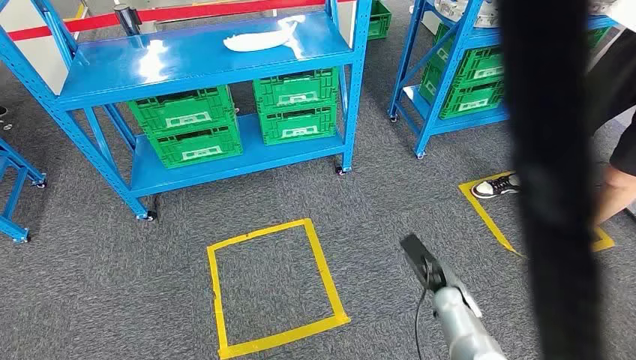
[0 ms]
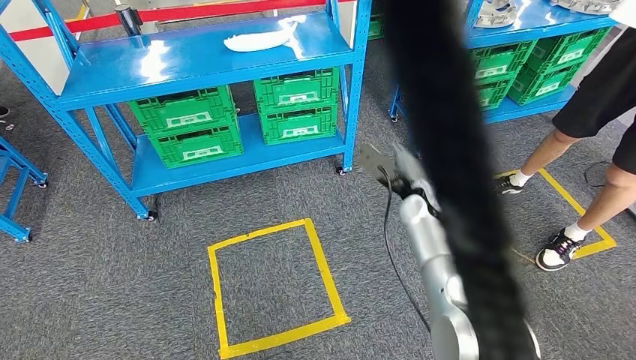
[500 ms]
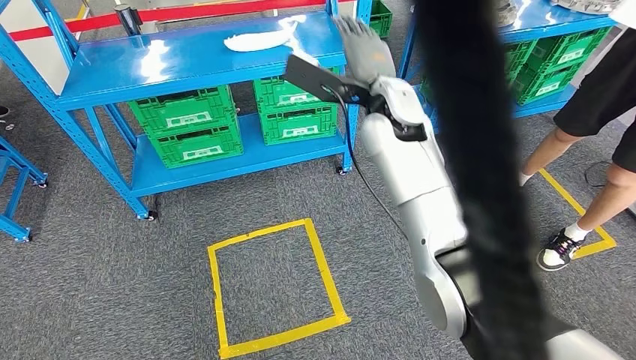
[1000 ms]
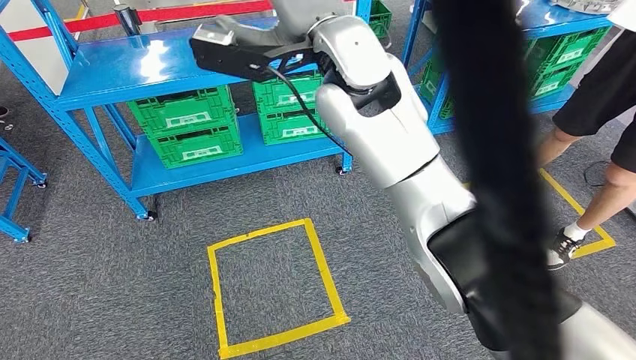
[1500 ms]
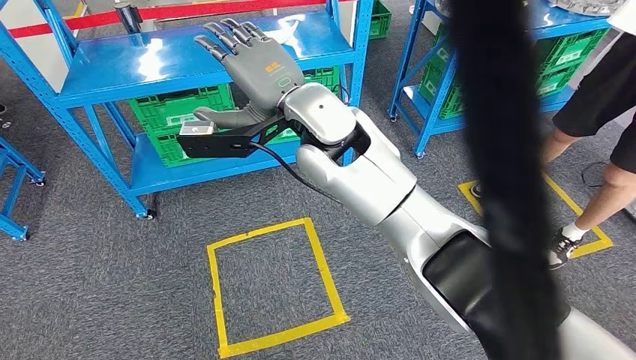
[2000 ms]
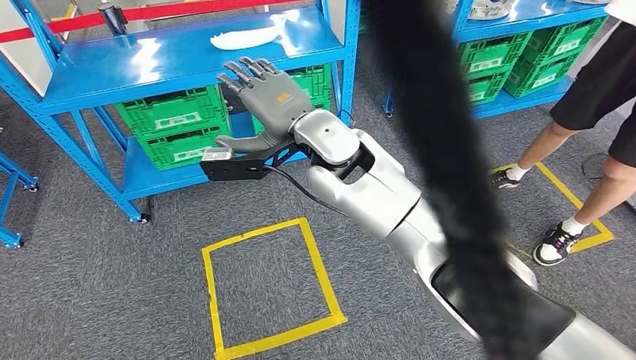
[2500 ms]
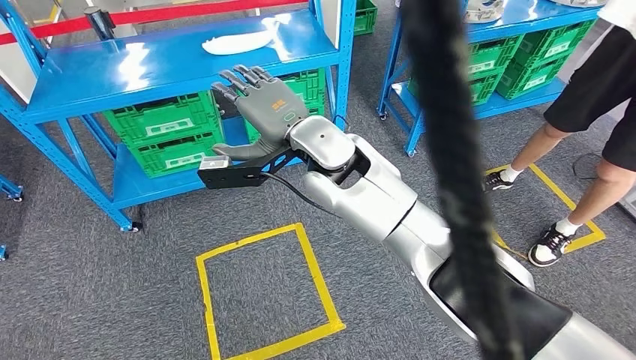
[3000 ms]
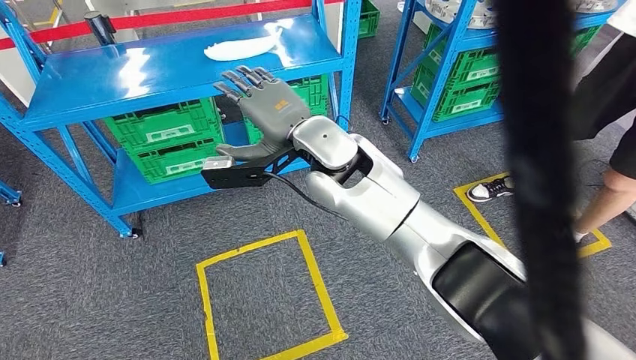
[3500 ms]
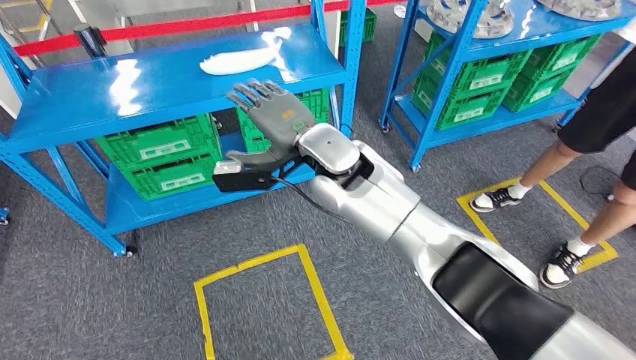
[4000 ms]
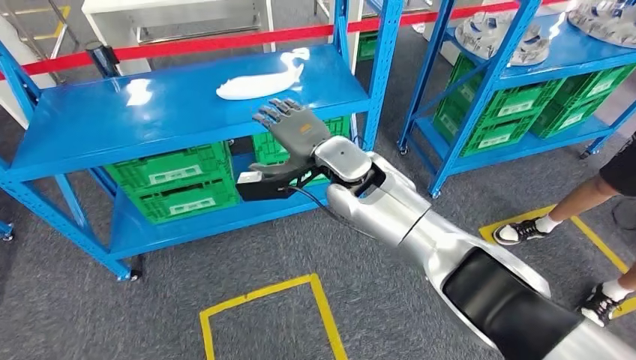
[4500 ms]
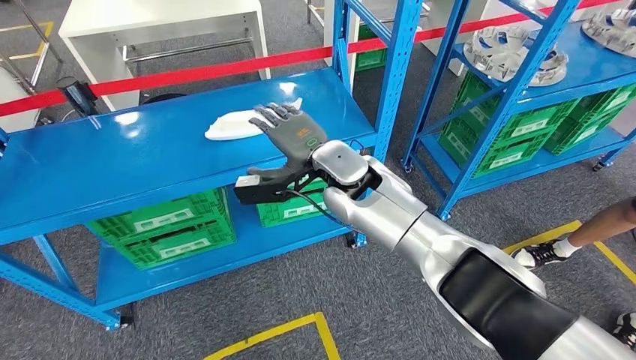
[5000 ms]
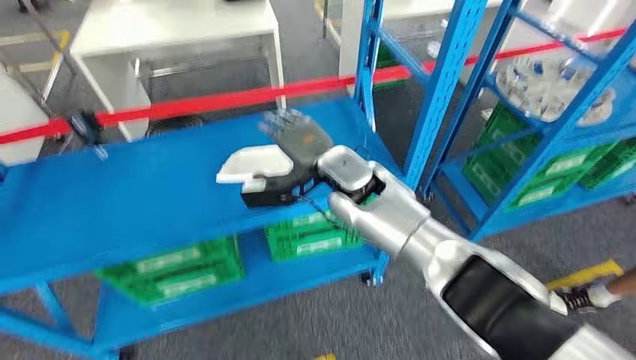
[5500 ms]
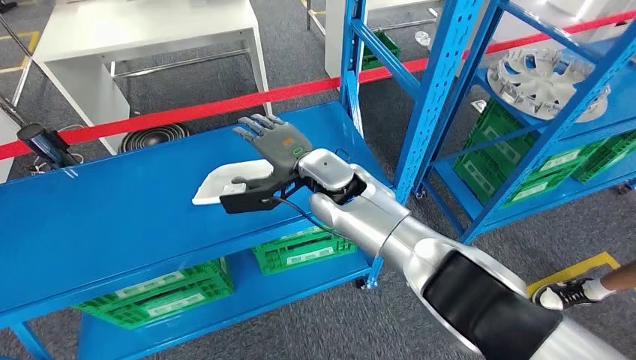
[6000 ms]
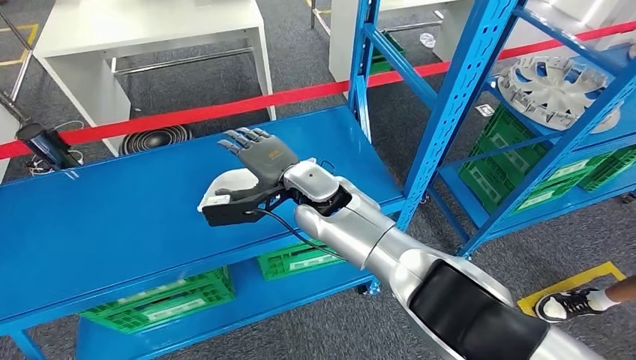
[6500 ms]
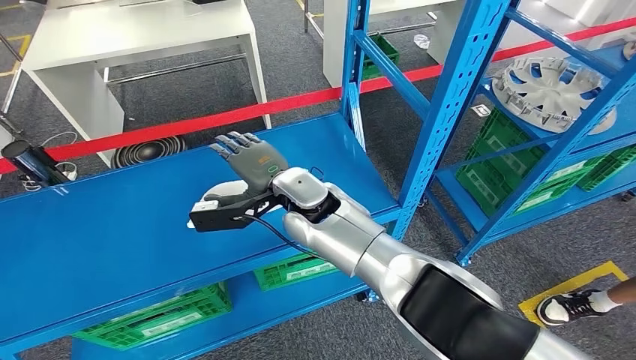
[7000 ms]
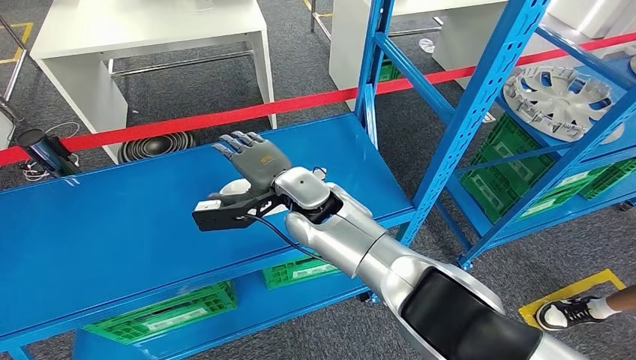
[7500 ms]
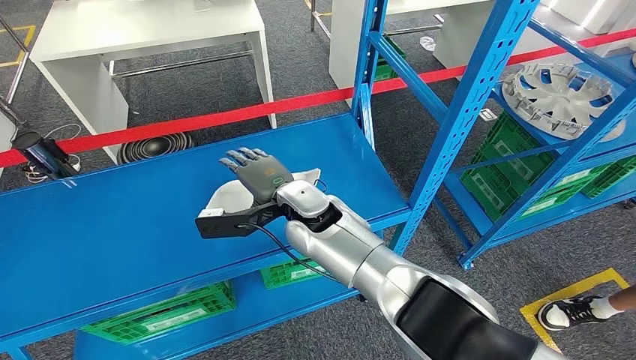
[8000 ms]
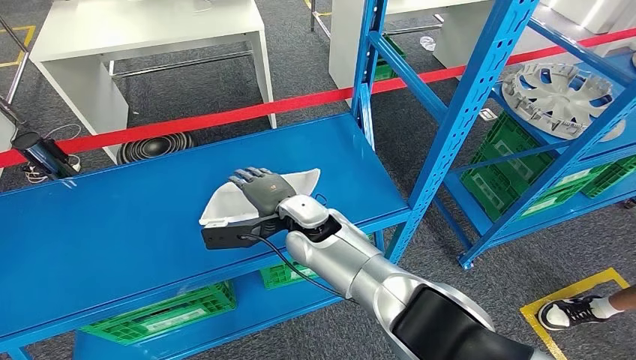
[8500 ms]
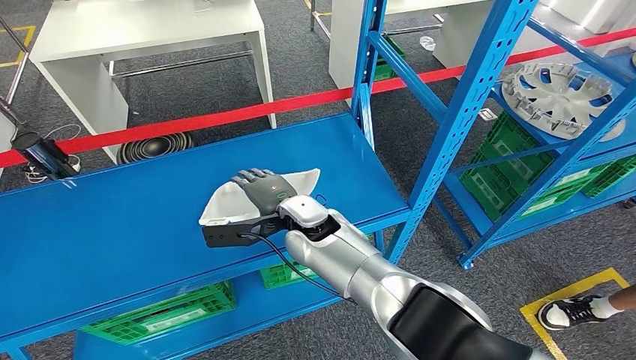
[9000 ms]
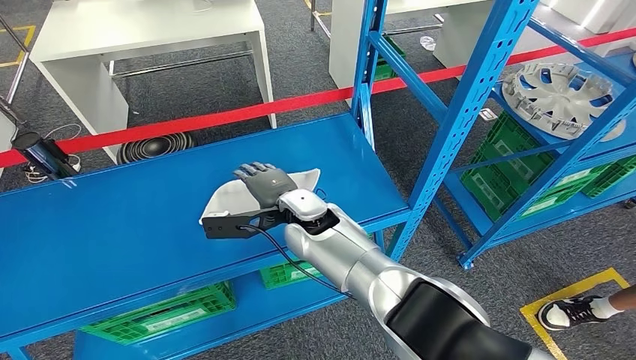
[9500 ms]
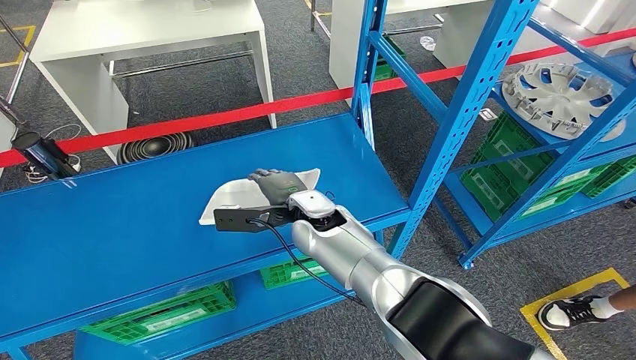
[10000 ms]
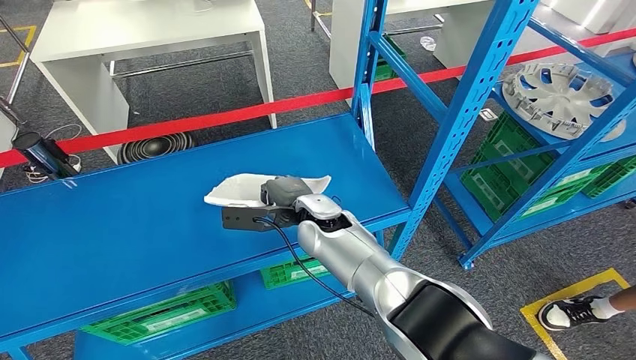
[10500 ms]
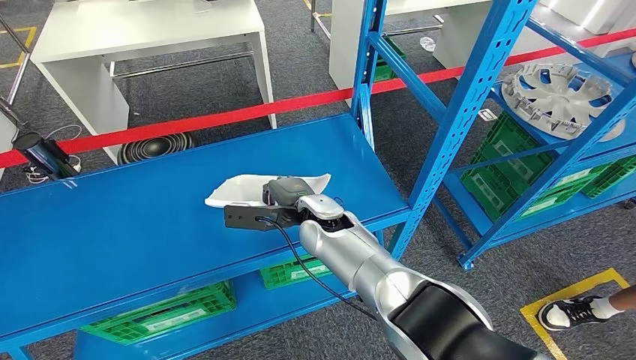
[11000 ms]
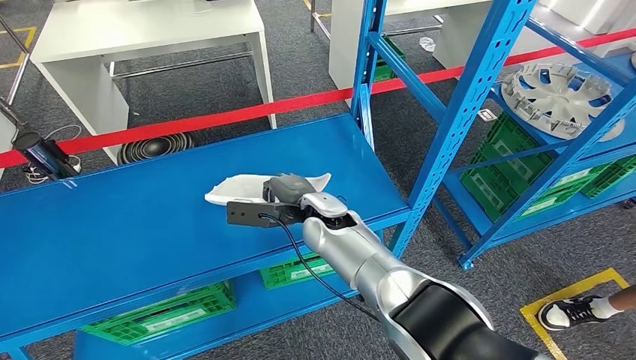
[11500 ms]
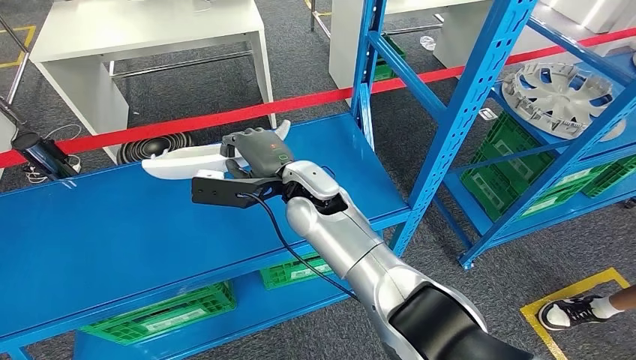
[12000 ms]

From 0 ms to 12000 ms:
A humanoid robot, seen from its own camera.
From 8000 ms to 10000 ms: The hands move only a little.
From 10000 ms to 12000 ms: The right hand goes about 5 cm upward.

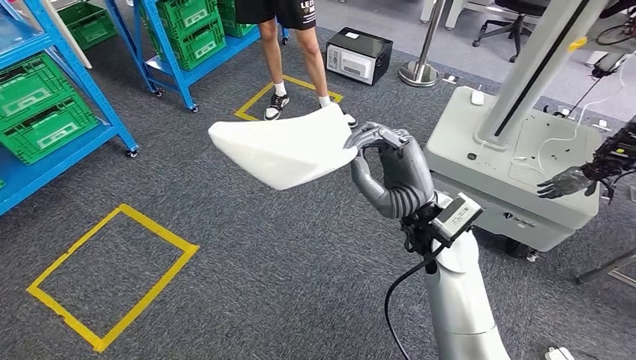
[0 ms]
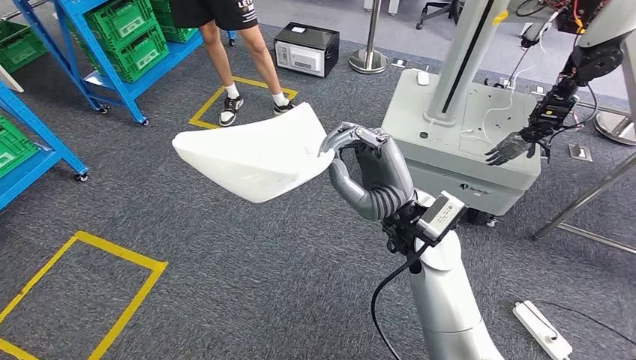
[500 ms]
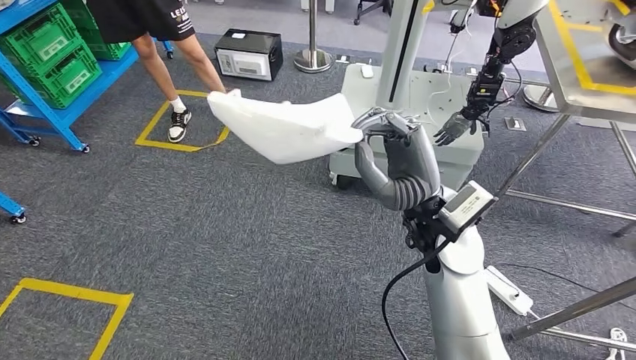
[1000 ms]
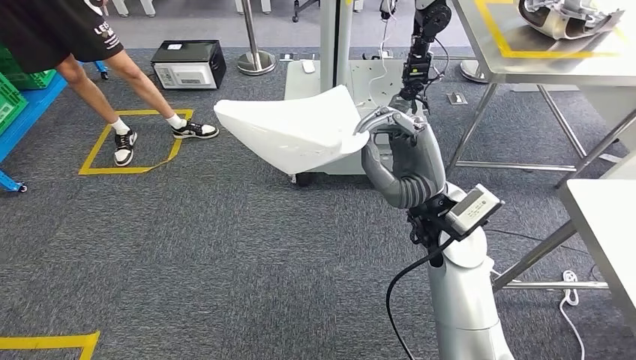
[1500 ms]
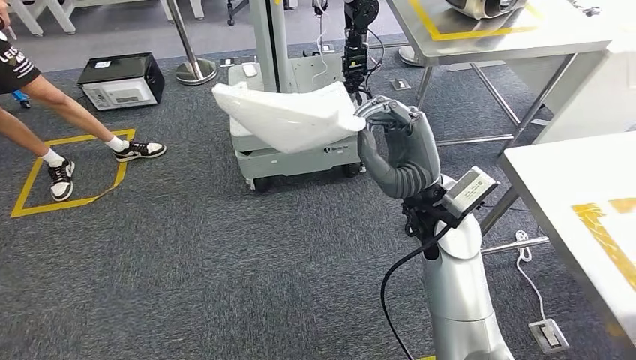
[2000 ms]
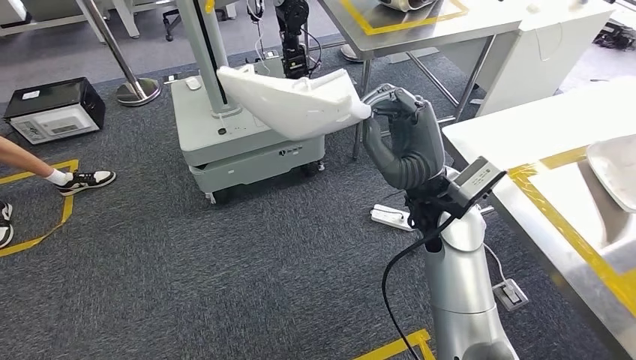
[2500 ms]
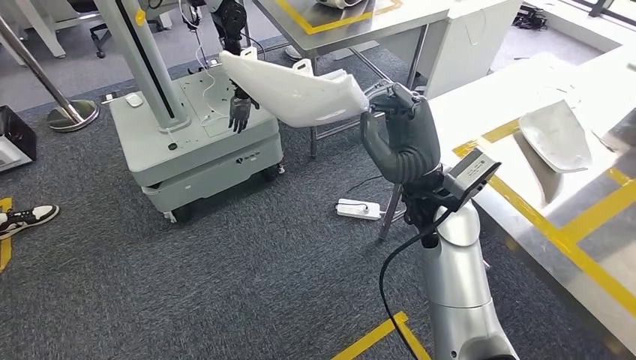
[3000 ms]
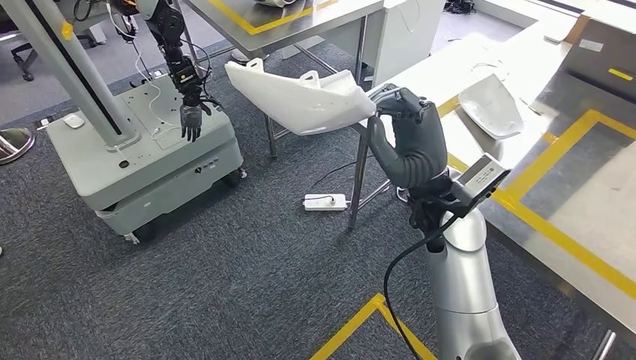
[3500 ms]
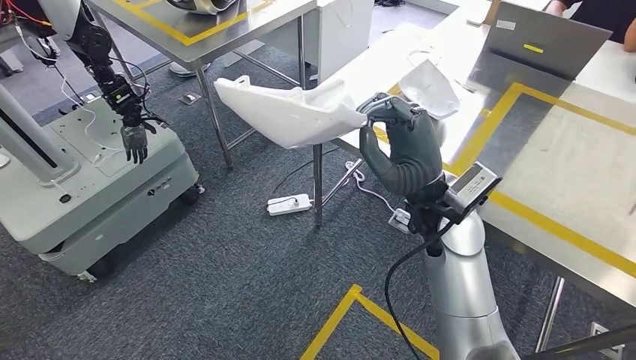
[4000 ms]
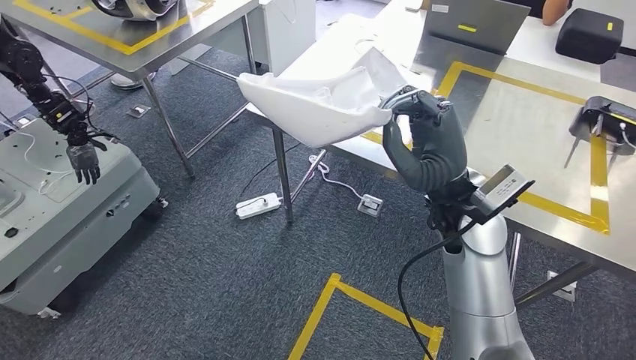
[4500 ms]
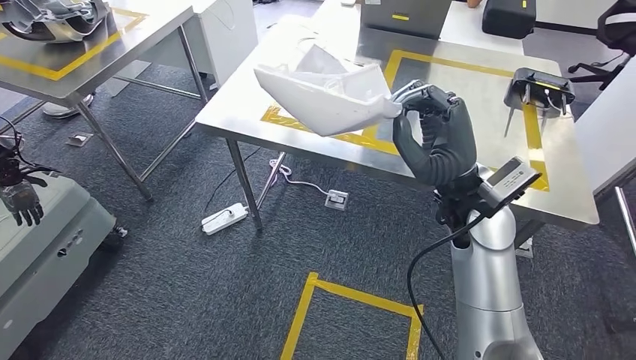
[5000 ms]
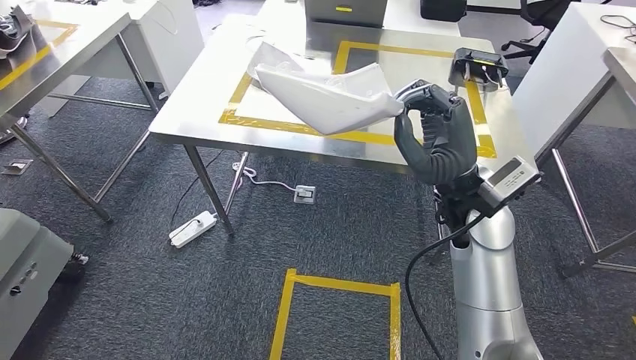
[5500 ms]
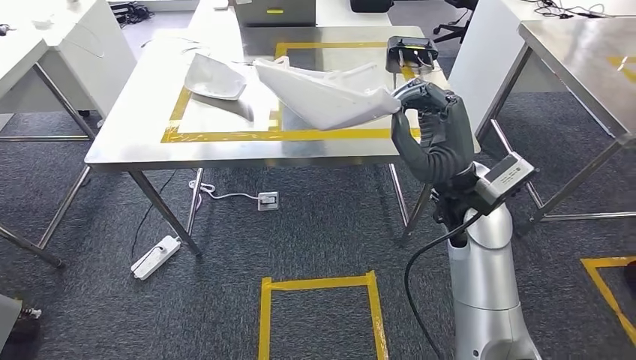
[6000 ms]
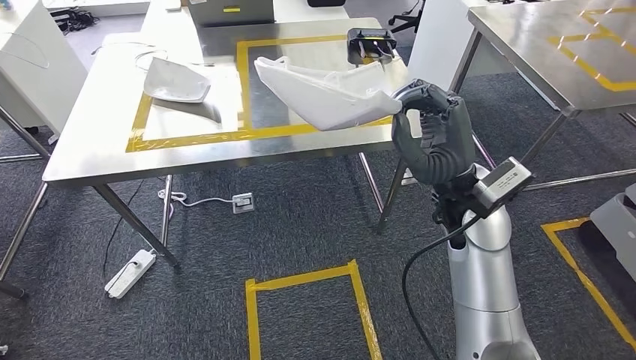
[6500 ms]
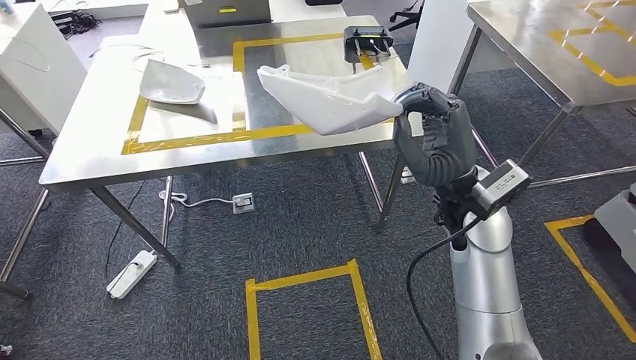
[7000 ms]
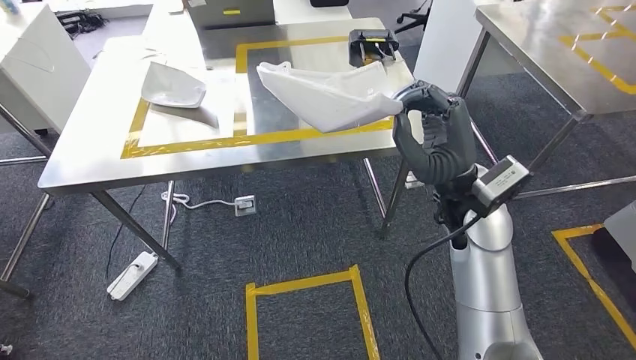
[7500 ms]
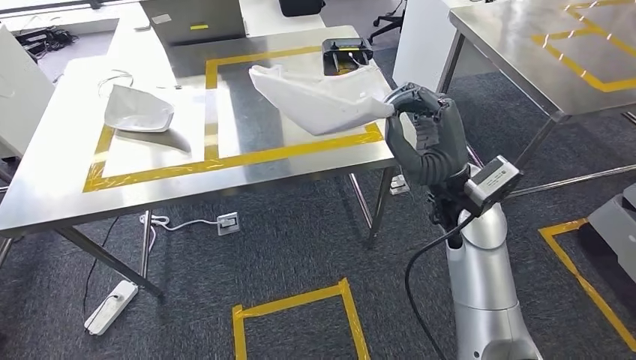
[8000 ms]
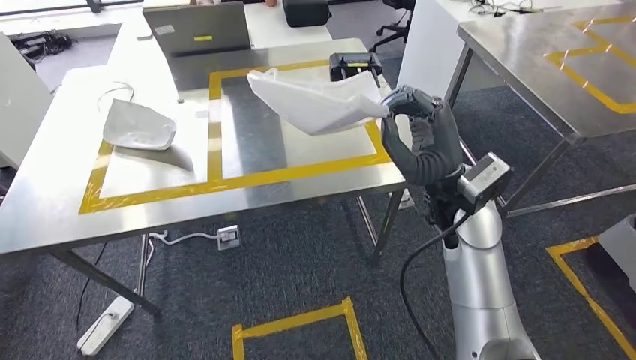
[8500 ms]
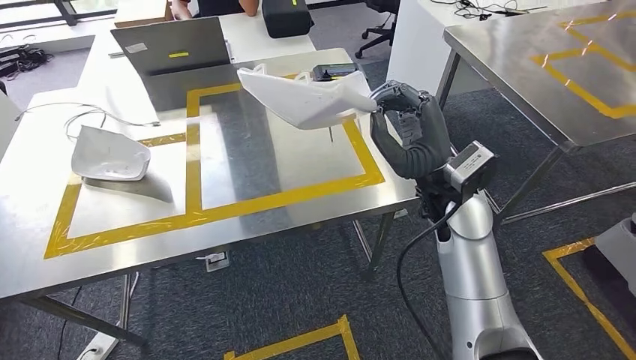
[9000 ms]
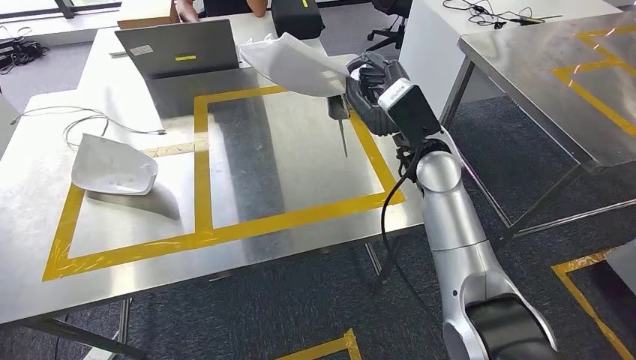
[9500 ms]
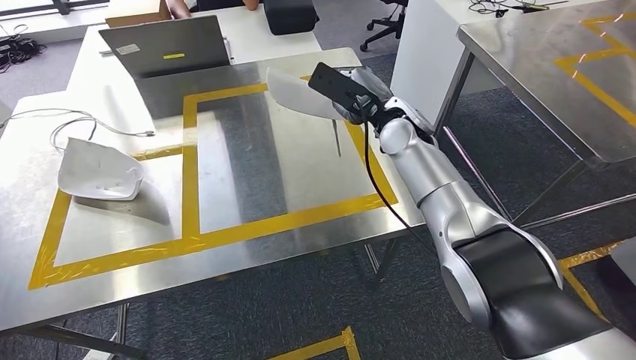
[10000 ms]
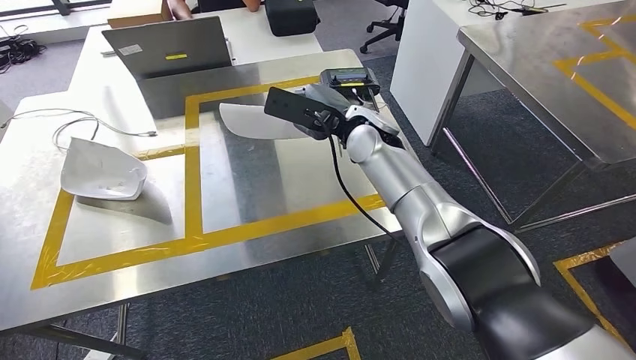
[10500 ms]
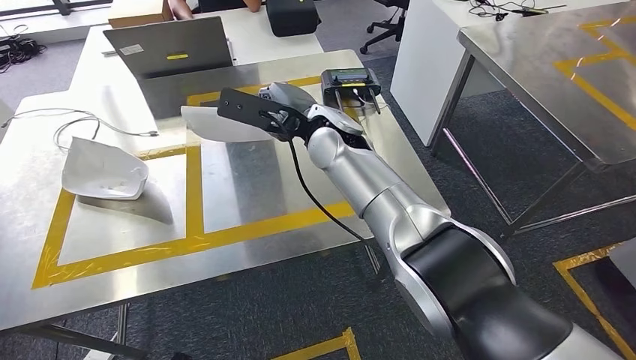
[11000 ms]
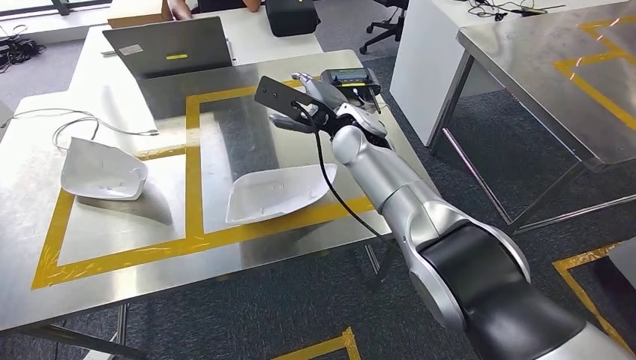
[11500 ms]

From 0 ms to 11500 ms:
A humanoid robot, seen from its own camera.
Step, from 0 ms to 8500 ms: Move the small parts to the workbench.
